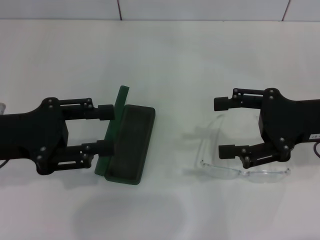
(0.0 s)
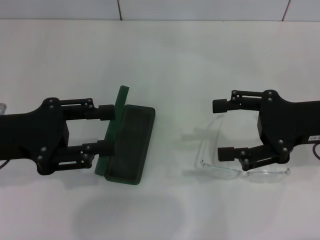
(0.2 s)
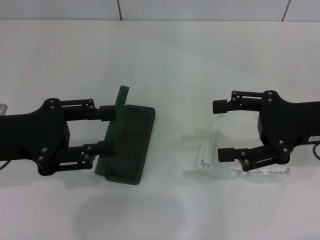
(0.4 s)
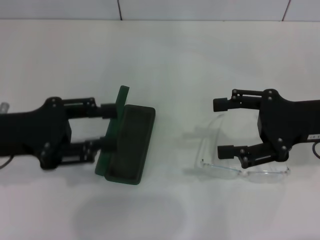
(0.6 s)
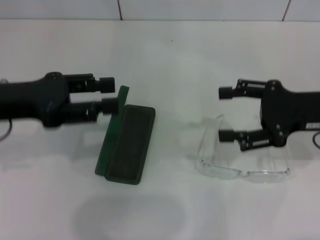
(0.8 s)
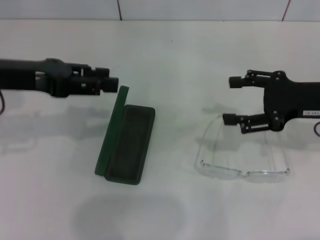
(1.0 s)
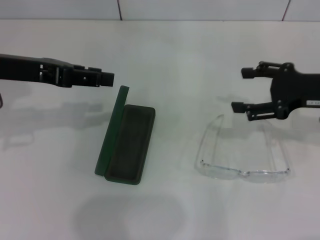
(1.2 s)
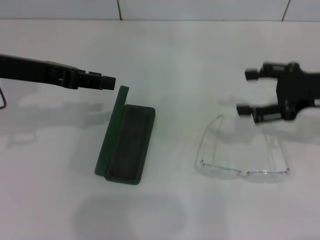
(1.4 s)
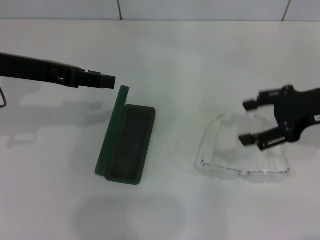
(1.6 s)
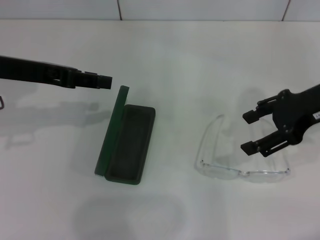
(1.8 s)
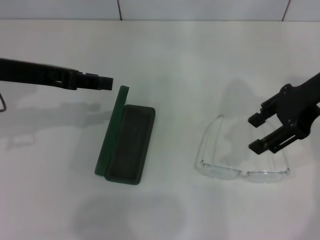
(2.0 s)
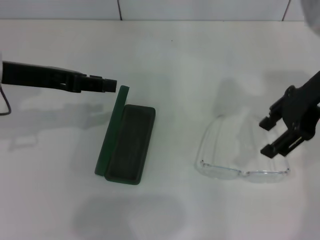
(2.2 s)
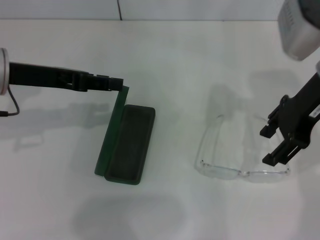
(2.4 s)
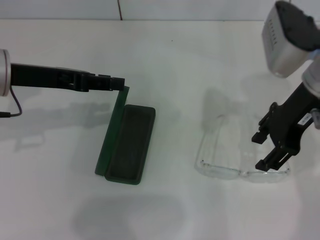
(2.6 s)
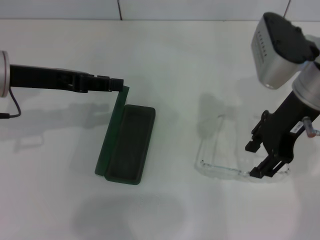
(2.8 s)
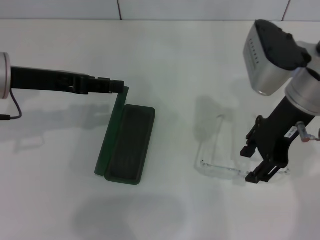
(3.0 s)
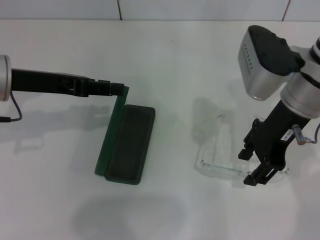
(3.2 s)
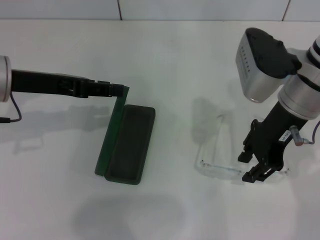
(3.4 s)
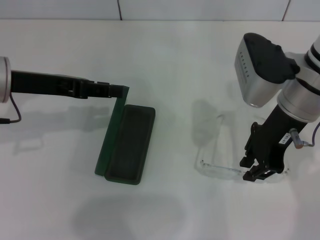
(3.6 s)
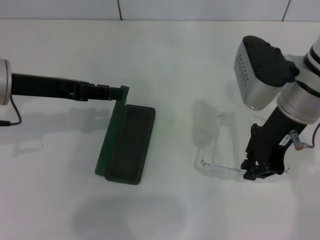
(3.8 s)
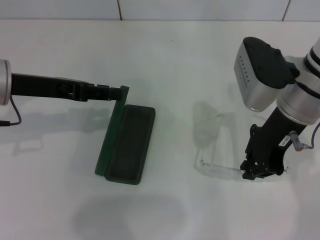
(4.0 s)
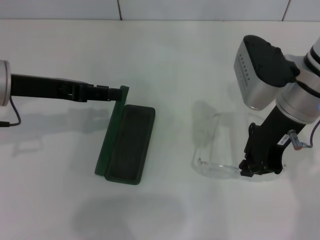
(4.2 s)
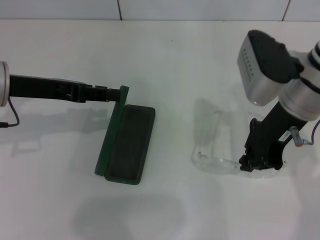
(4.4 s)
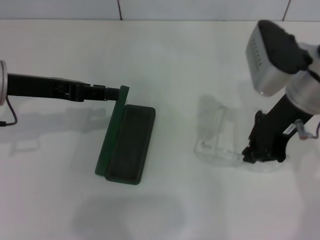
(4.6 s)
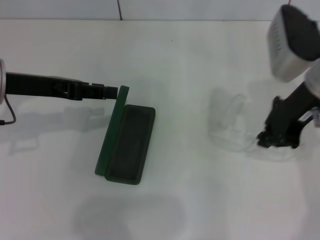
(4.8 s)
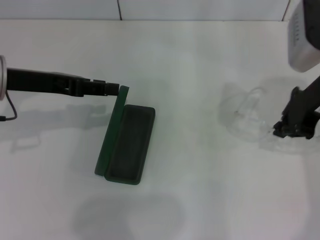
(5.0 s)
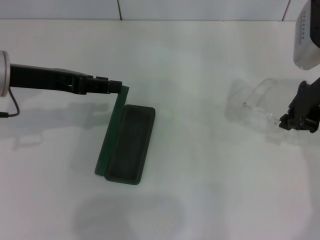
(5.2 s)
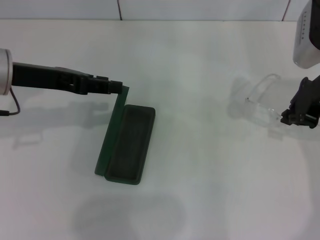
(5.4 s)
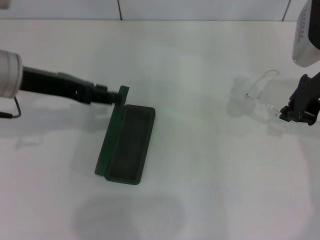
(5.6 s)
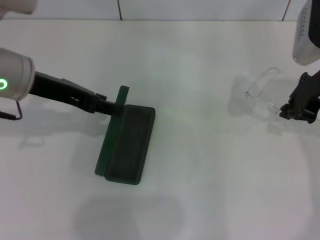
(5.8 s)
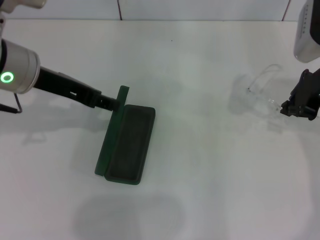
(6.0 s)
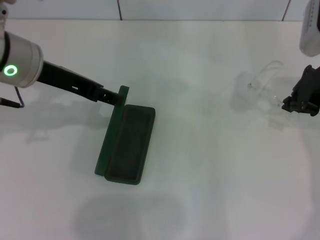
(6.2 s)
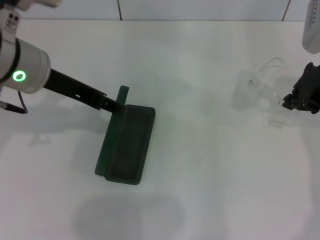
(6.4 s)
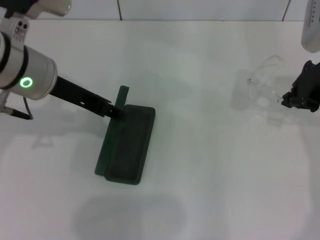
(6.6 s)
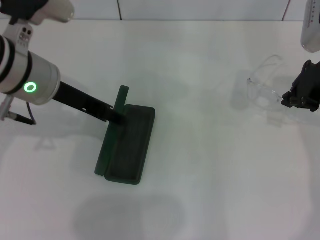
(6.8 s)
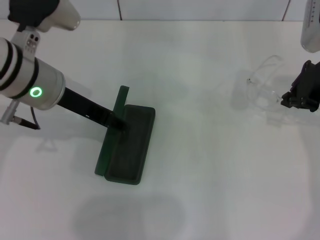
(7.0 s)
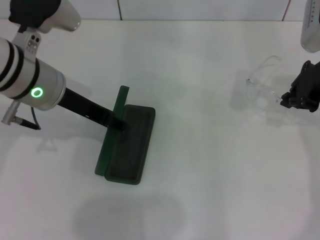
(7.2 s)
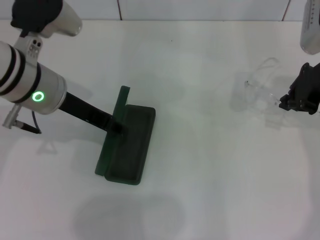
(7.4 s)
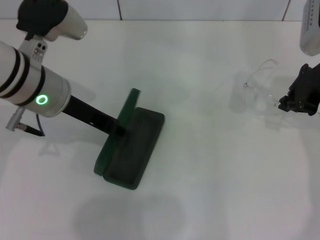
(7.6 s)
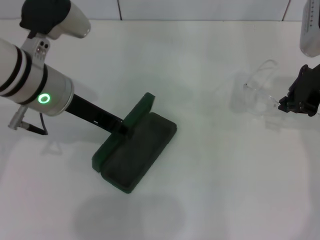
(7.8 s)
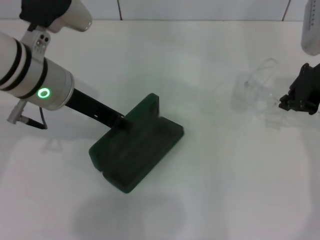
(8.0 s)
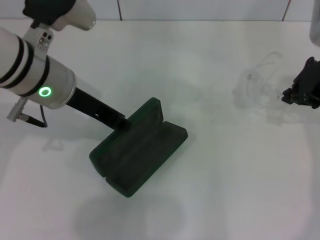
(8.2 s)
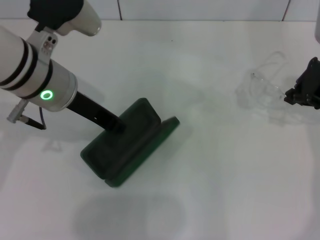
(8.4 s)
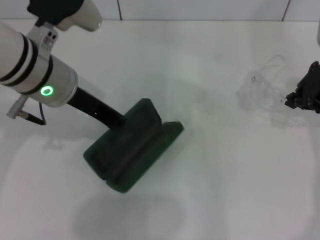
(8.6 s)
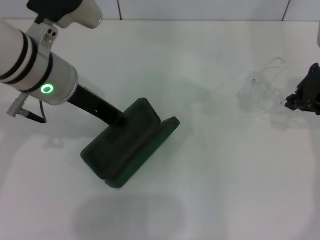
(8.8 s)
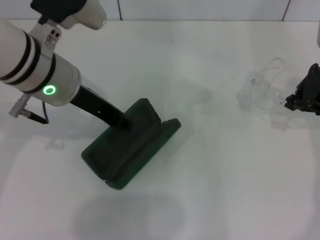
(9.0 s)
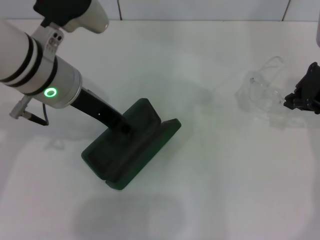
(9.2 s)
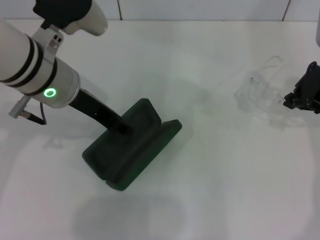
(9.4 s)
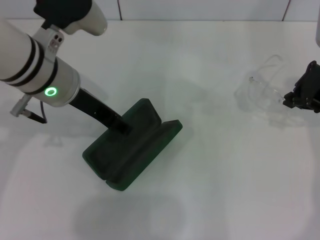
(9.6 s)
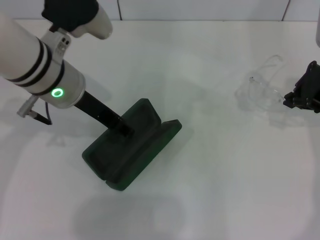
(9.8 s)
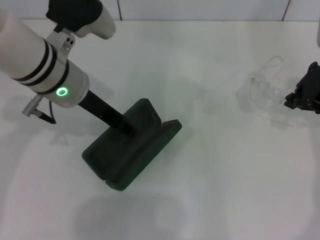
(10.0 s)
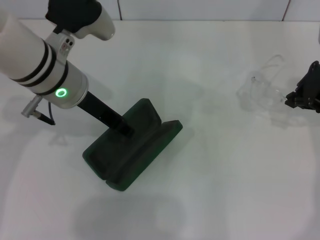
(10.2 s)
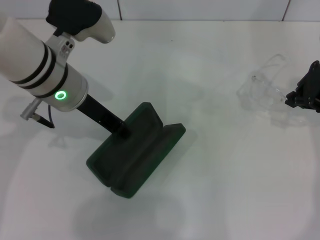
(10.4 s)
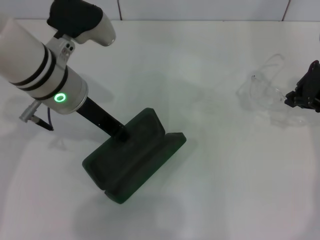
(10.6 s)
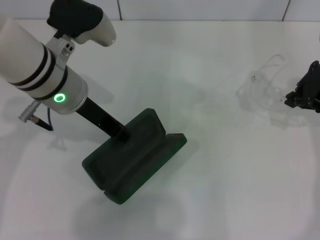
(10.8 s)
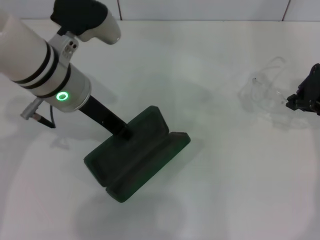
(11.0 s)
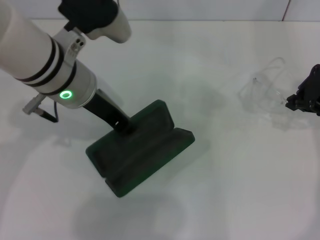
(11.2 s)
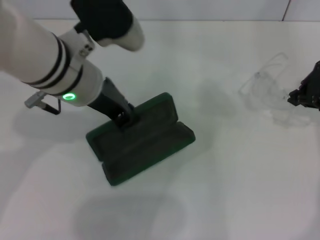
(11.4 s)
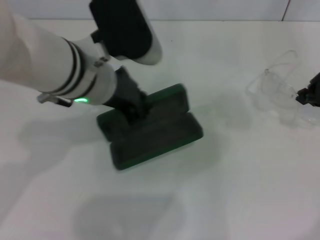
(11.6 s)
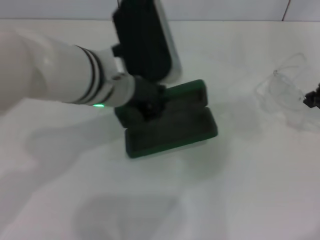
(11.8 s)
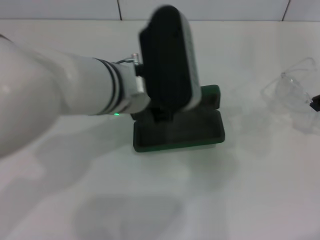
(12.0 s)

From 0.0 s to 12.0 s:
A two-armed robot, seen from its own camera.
Step, from 0.0 s to 4.0 s: Grab the eyeglass frame with your right hand.
Step, from 4.2 s to 10.6 s: Grab the glasses case with your left hand.
From 0.0 s to 1.6 s: The left gripper heads forward and upward, covering approximately 10 cm.
From 1.6 s to 3.0 s: The right gripper is displaced to the left by about 10 cm.
From 3.0 s to 4.4 s: The right gripper closes its fingers.
From 4.4 s to 6.0 s: The left gripper shifts by roughly 5 cm. The right gripper shifts approximately 10 cm to the right.
From 6.0 s to 7.6 s: There are only small adjustments of the grippers.
From 7.6 s to 9.0 s: The left gripper closes its fingers.
From 9.0 s to 10.4 s: The left gripper opens its fingers.
From 10.4 s to 12.0 s: The left gripper travels to the right by approximately 10 cm. Meanwhile the right gripper shifts by roughly 5 cm.

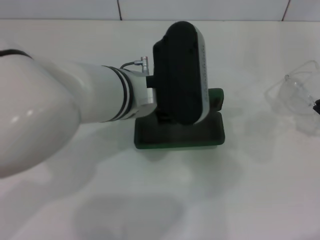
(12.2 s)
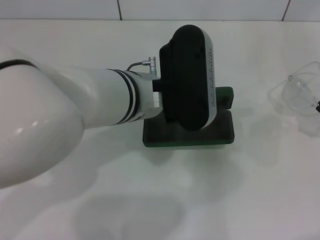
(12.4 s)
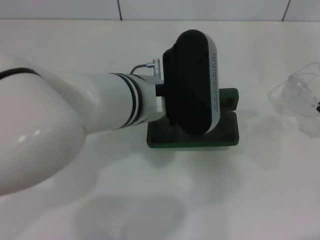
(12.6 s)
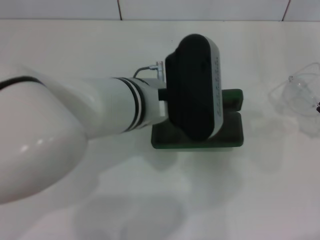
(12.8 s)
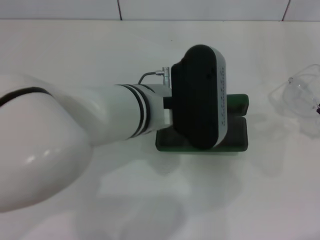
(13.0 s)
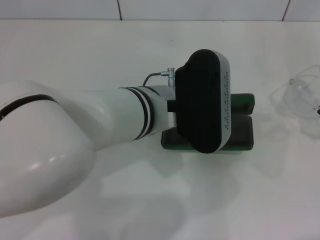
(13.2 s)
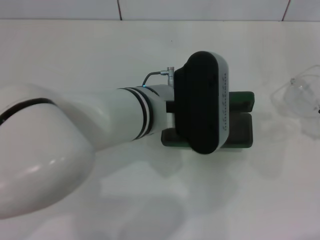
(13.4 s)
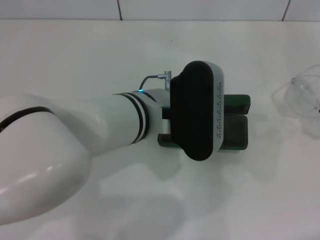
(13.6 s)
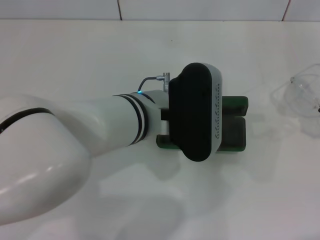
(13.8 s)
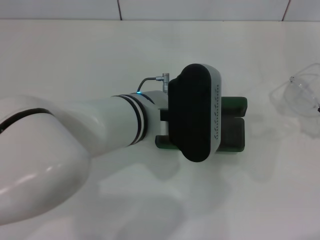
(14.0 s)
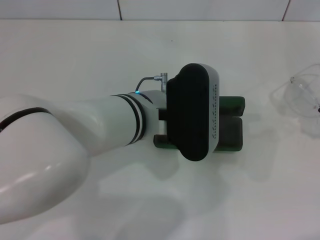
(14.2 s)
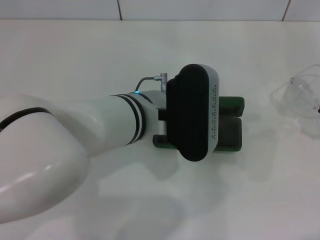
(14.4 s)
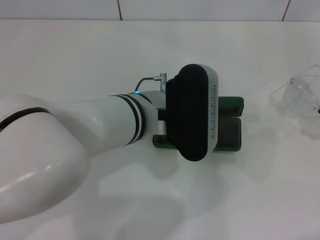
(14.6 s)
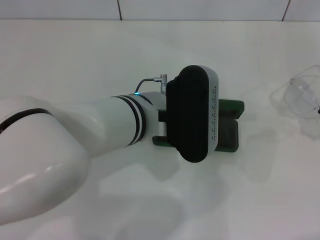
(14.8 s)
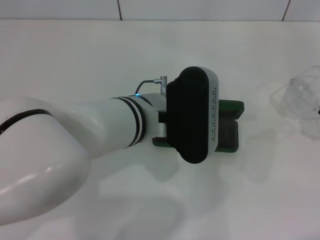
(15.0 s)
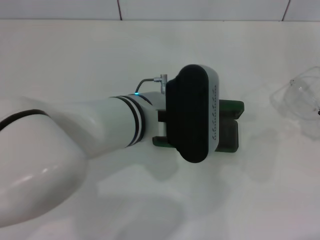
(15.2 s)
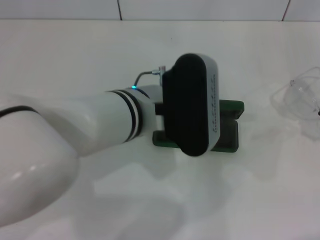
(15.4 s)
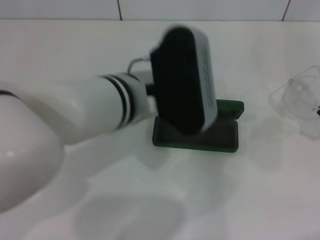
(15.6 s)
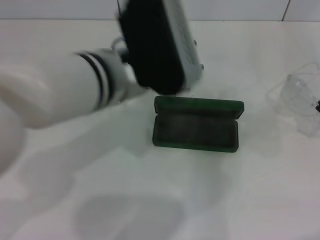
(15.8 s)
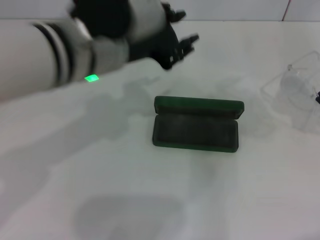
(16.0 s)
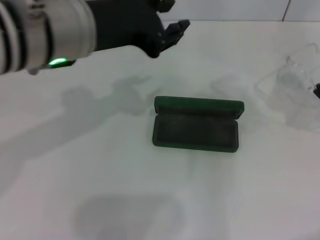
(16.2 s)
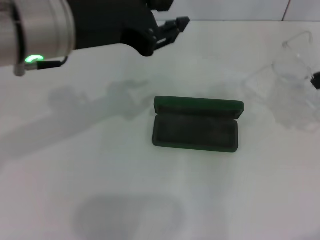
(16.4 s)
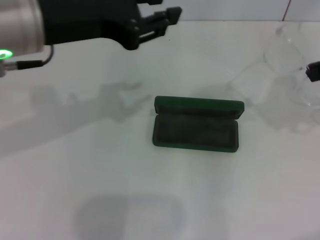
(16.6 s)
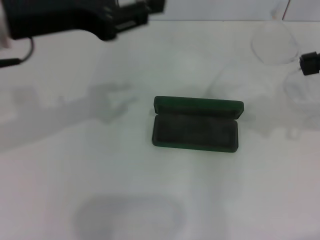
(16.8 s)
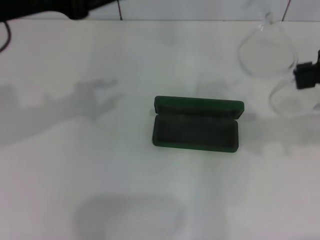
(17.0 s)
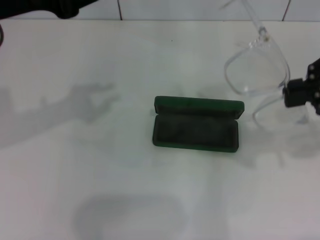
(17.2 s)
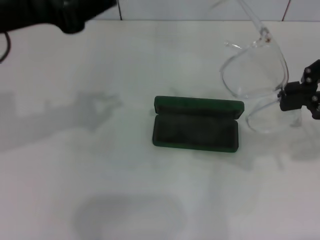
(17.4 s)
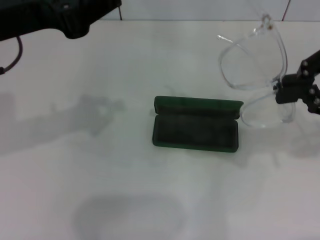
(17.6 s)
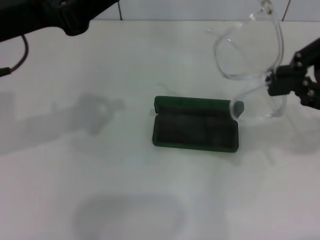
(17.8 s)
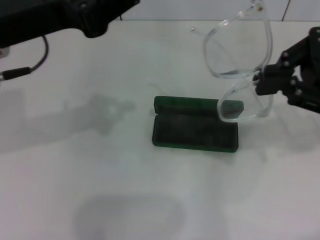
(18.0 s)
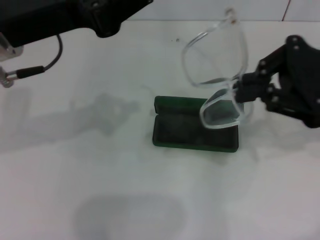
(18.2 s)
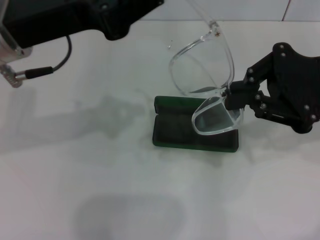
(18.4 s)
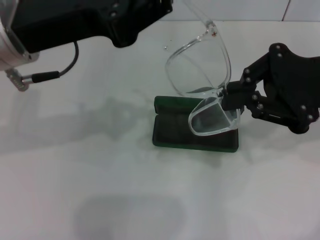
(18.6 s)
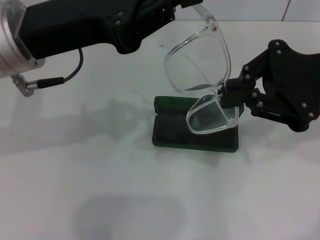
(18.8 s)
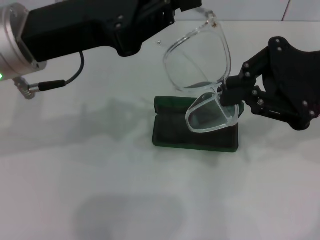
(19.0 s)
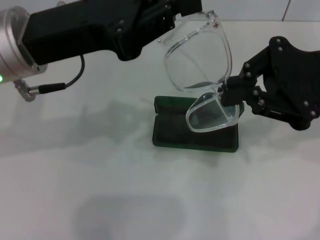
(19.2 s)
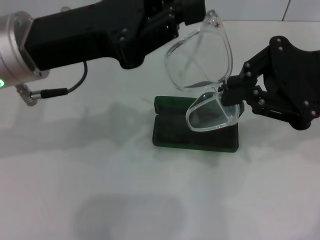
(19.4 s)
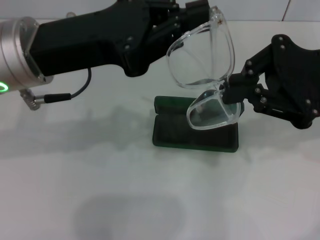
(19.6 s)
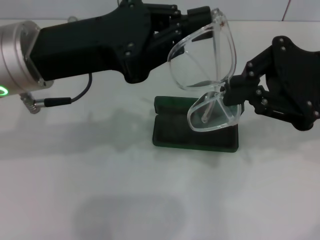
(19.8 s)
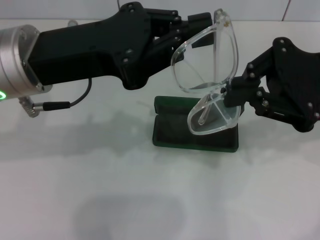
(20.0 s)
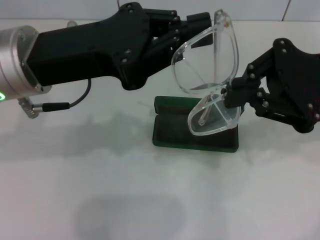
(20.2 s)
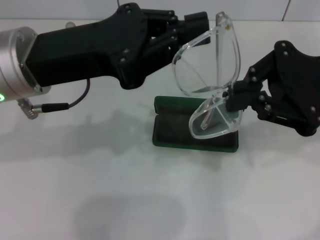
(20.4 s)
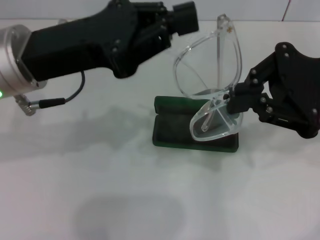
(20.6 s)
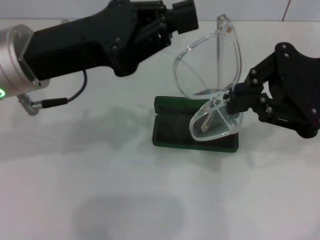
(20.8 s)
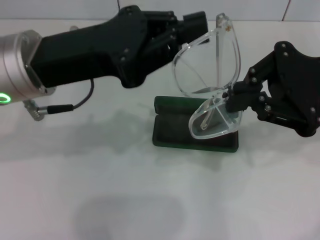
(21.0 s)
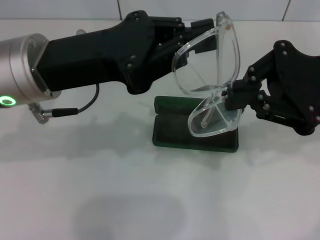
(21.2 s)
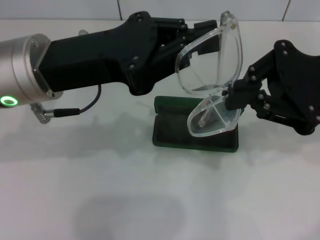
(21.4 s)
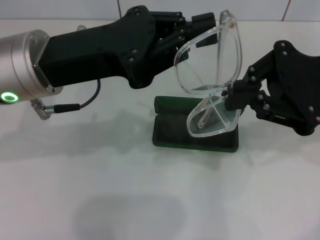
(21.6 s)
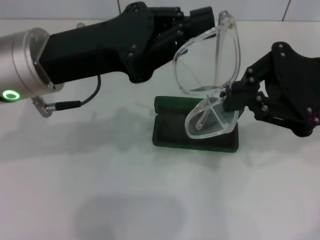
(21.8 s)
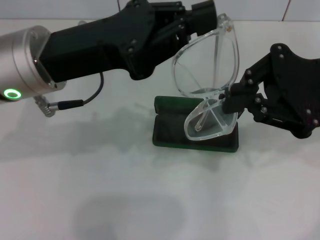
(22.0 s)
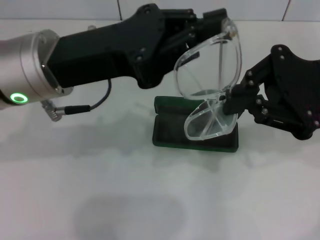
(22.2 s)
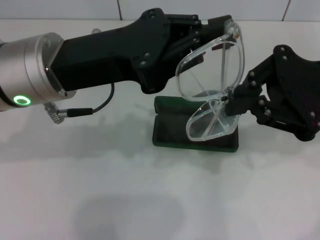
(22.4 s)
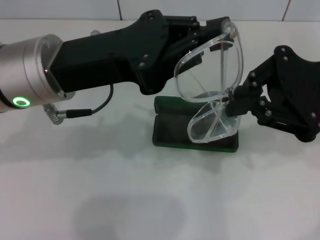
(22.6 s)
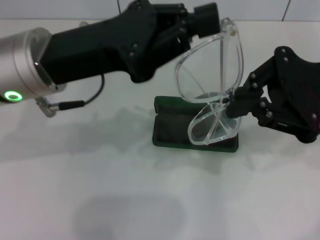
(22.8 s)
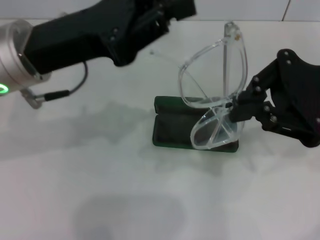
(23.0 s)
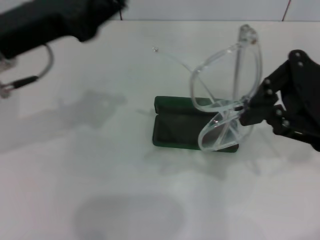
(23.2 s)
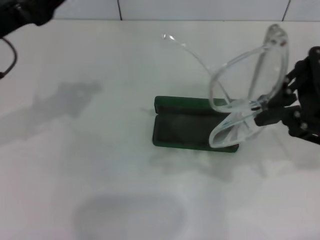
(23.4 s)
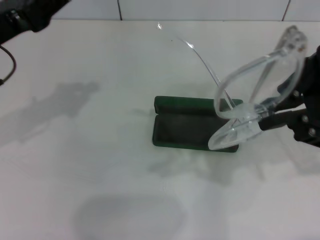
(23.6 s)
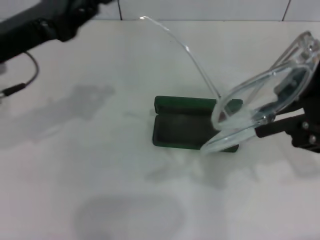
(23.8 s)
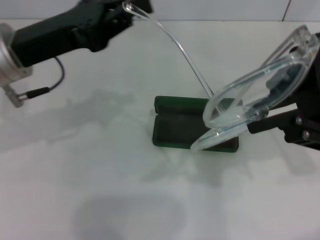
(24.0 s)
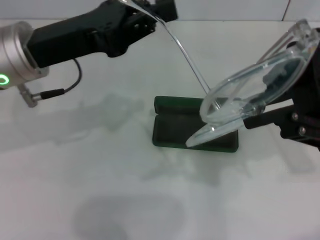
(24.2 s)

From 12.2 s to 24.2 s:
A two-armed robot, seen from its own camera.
Step, from 12.2 s to 15.6 s: Place the glasses case in the center of the table with your left hand.
From 12.2 s to 13.8 s: There are only small adjustments of the grippers.
From 13.8 s to 15.2 s: Both grippers stay put.
From 15.2 s to 16.6 s: The right gripper goes approximately 10 cm upward. The left gripper moves upward and to the left, some 20 cm.
From 16.6 s to 18.2 s: The right gripper is displaced to the left by some 5 cm, while the left gripper closes its fingers.
From 19.8 s to 21.2 s: There are only small adjustments of the grippers.
From 21.2 s to 22.6 s: The two grippers keep their place.
